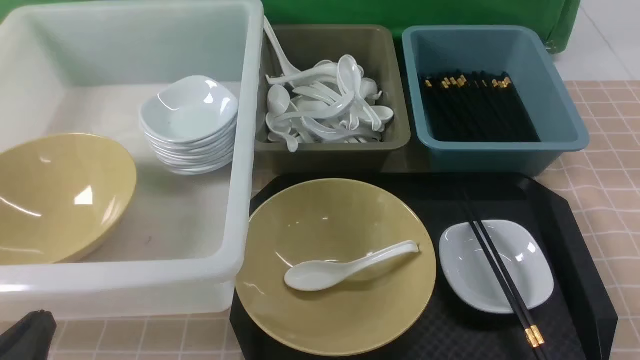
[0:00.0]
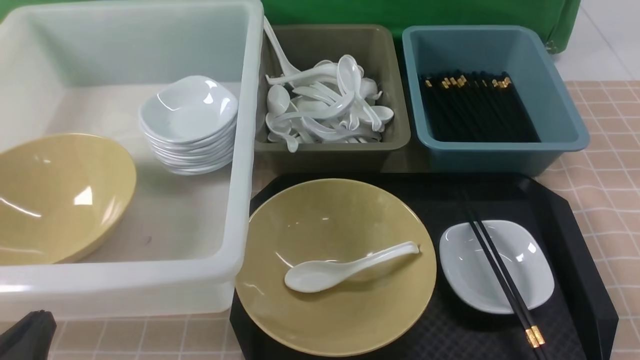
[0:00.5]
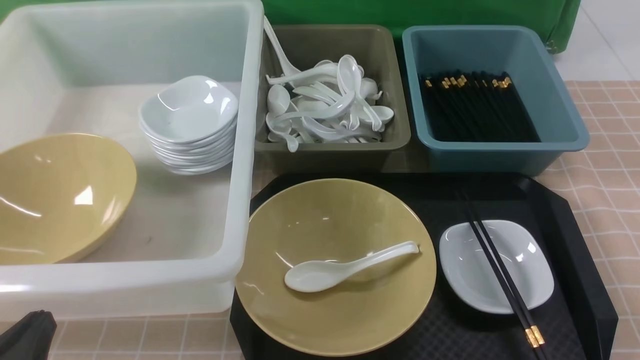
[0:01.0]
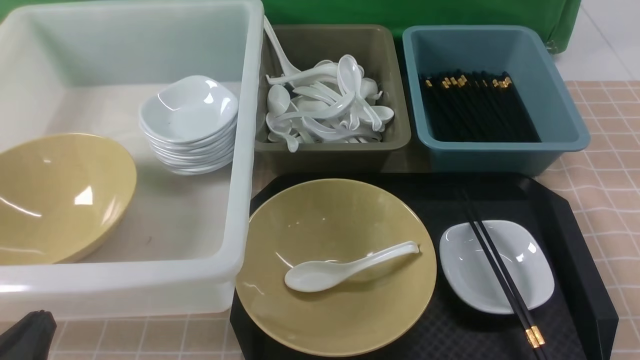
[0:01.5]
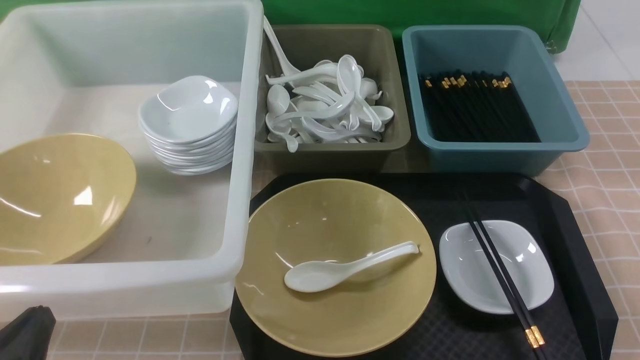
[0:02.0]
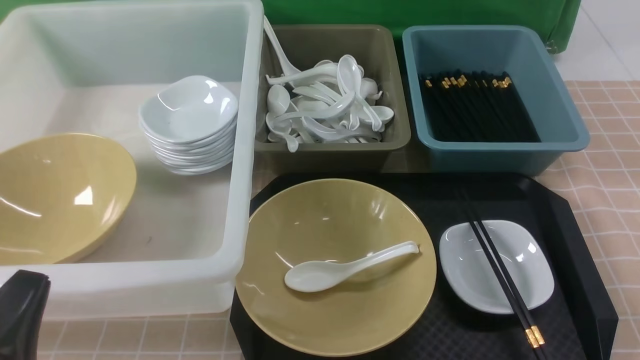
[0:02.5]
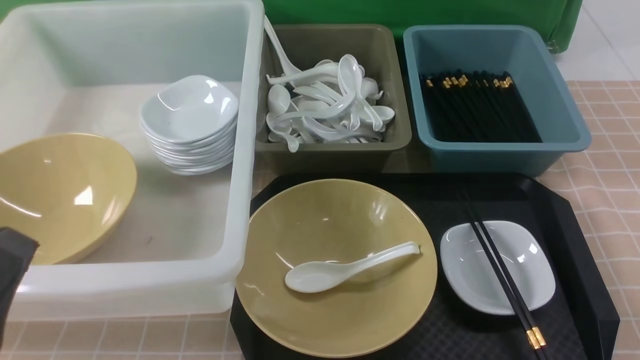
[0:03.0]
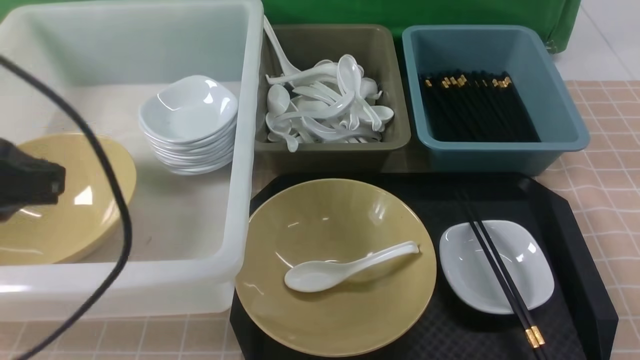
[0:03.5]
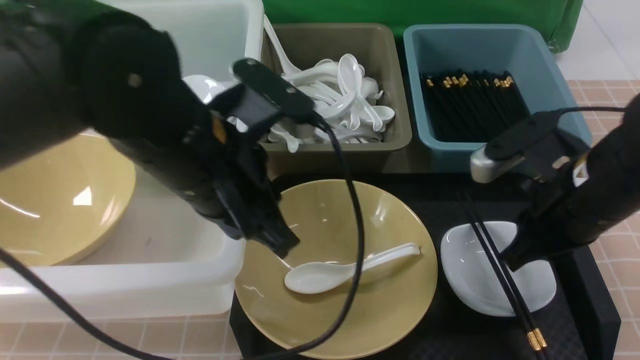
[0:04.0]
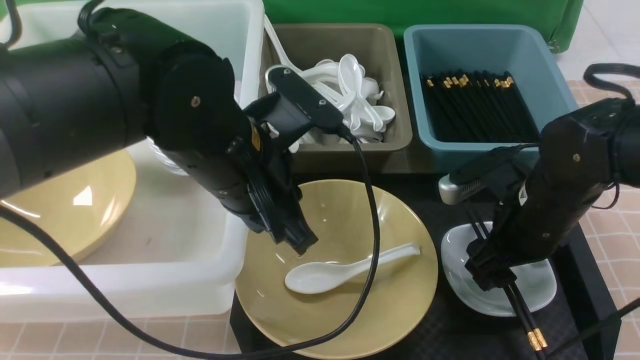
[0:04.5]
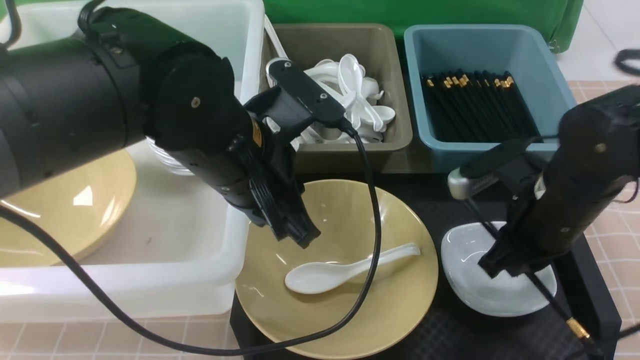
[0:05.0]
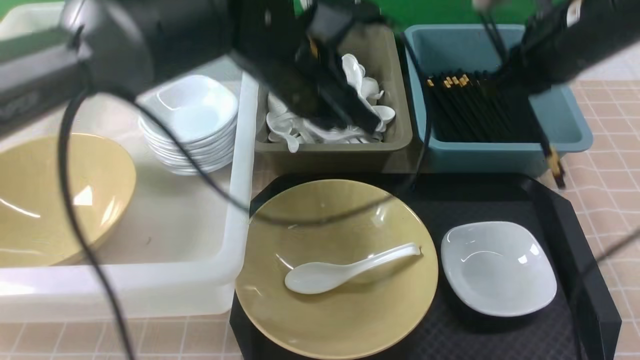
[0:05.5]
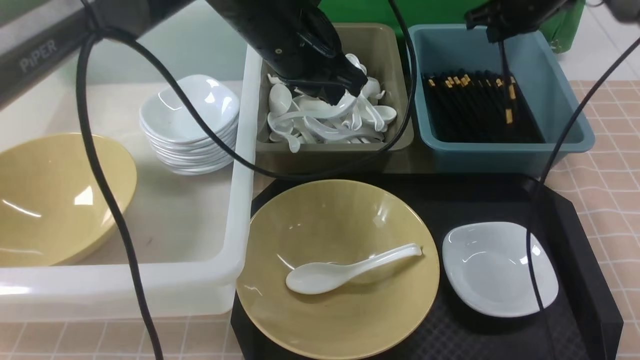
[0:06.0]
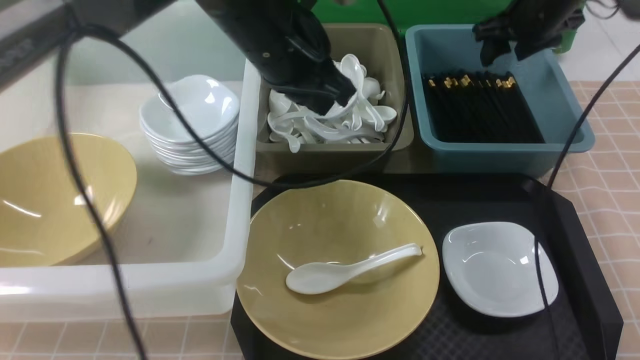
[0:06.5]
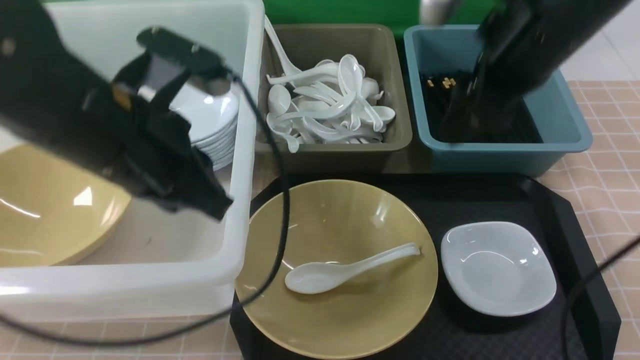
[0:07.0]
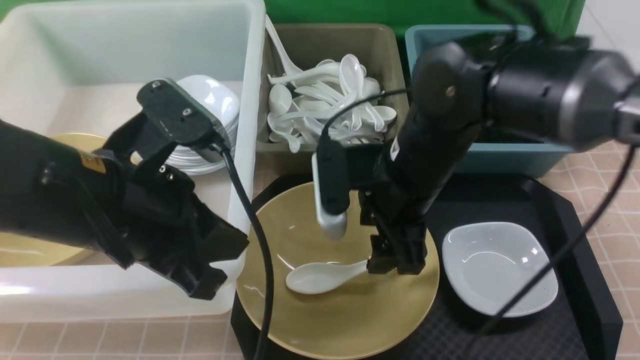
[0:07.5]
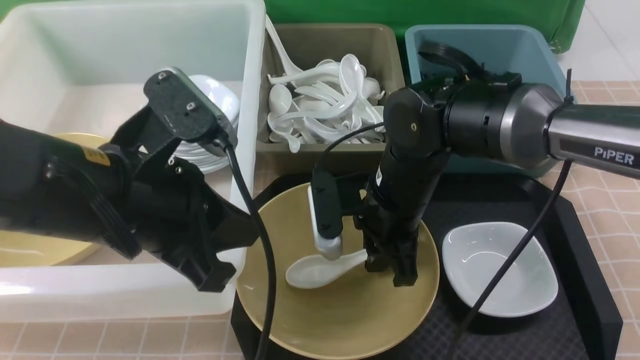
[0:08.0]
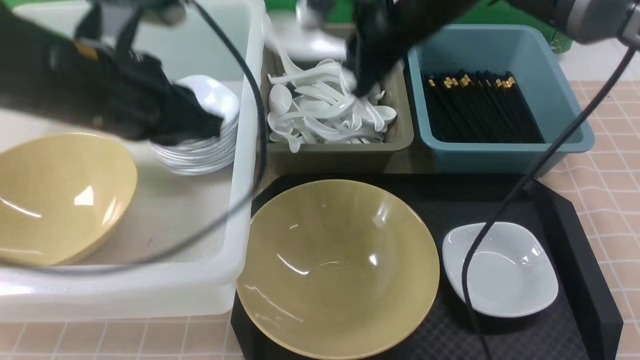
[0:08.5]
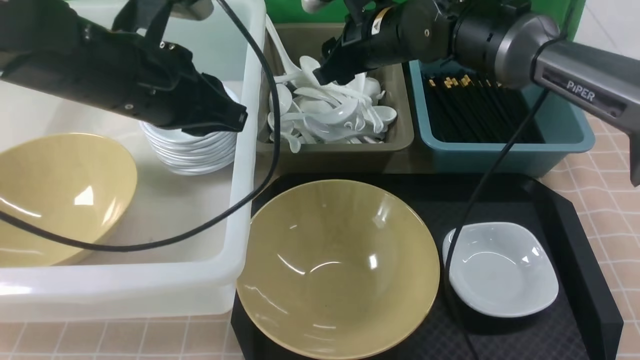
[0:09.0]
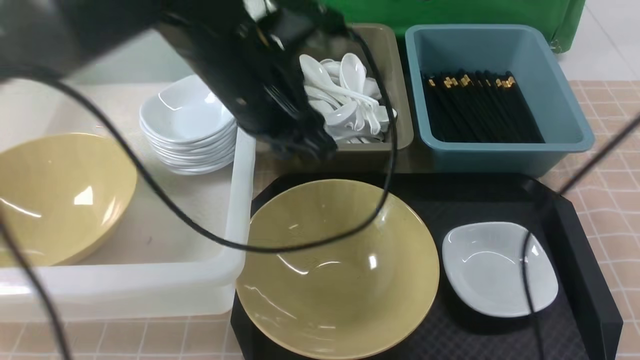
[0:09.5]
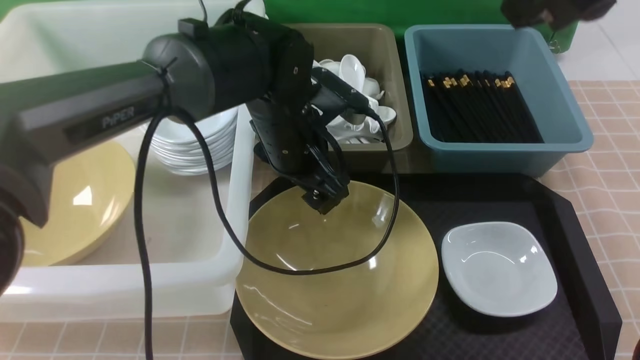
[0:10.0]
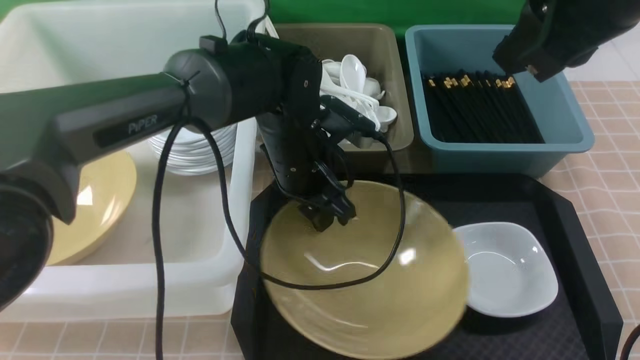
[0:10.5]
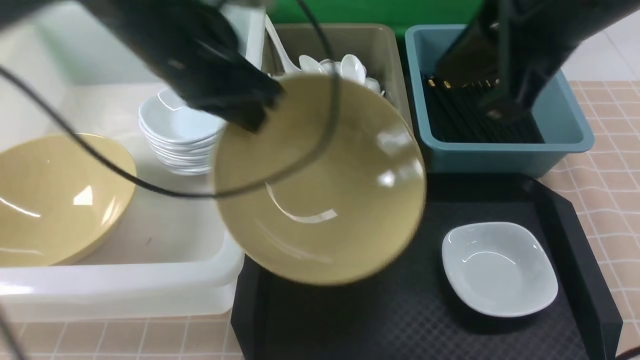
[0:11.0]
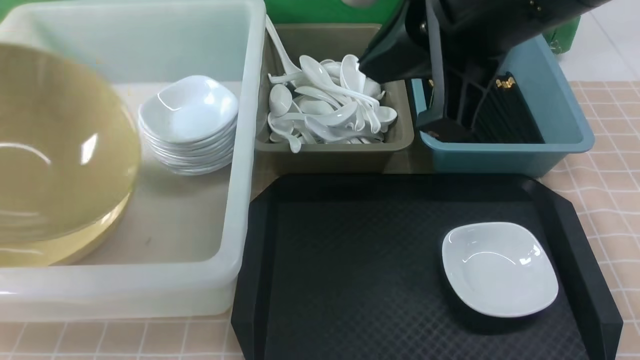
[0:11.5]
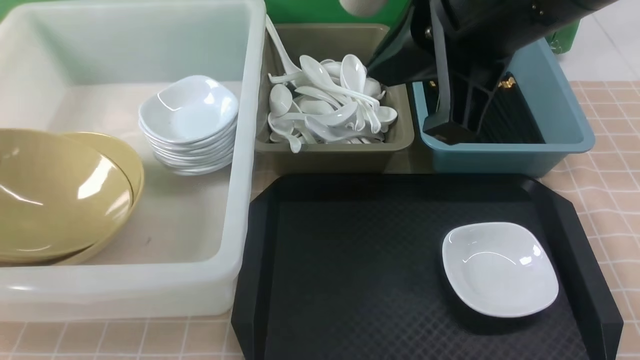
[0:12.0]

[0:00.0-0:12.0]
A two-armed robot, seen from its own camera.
Task of the whole recording: on brown table put chopsticks spoon bowls plates into blue grey white boxes.
Step, 0:00.0 to 0:05.0: use the right arm to grab the chopsticks.
Step, 0:05.5 to 0:06.5: use the right arm to put the chopsticks into the small storage box on the right.
Step, 0:07.0 to 0:08.0: use the right arm to grab the soup spoon in the middle.
Step, 0:08.5 to 0:09.0: use the right arm to put the soup spoon into the small storage box in the middle.
Step, 0:09.5 to 0:10.5: use the left arm to grab the yellow noodle bowl on the left.
0:02.0 to 0:04.0: The left gripper travels forward, to the right and upward by about 25 cm. The right gripper shifts about 25 cm forward and to the left, and closes and opens again.
0:04.0 to 0:06.0: The right gripper goes roughly 25 cm forward, and opens and closes again. The left gripper heads forward, covering approximately 15 cm.
0:06.0 to 0:08.0: The grippers both shift backward and to the left by approximately 25 cm. The right gripper opens and closes again.
0:08.0 to 0:10.0: The right gripper shifts about 25 cm upward and to the right, and opens and closes again. The left gripper heads forward, to the right and downward, covering approximately 20 cm, and opens its fingers.
0:10.0 to 0:12.0: The left gripper heads to the left, covering approximately 40 cm, and closes up, while the right gripper goes roughly 10 cm to the left, and closes.

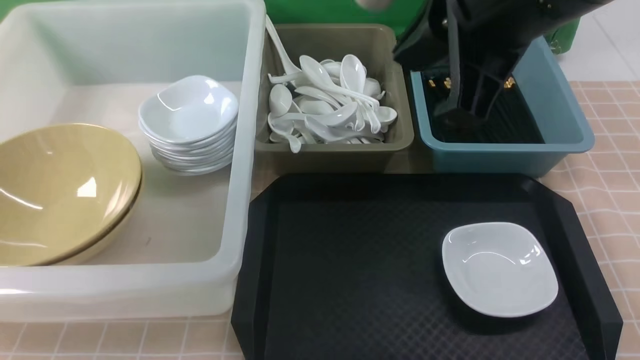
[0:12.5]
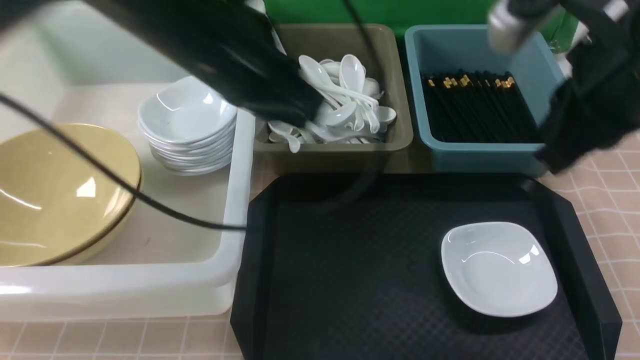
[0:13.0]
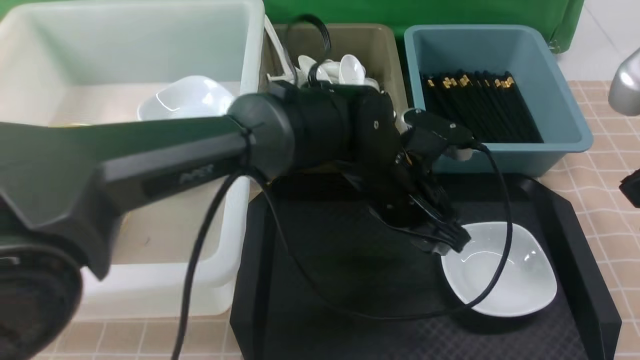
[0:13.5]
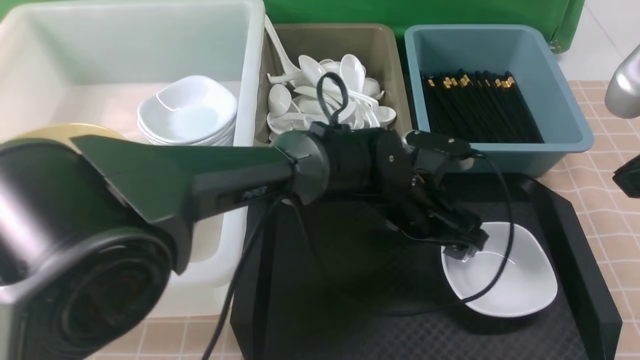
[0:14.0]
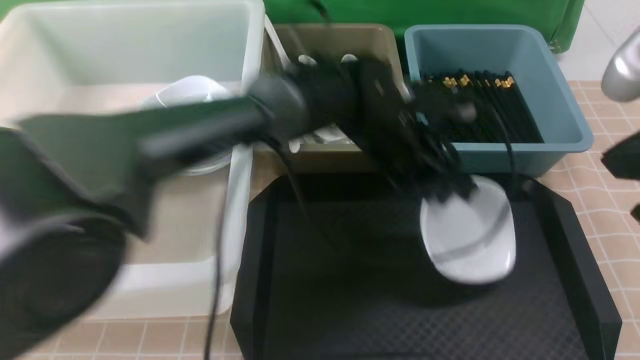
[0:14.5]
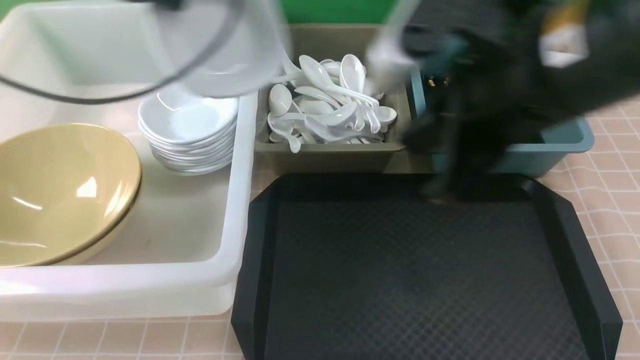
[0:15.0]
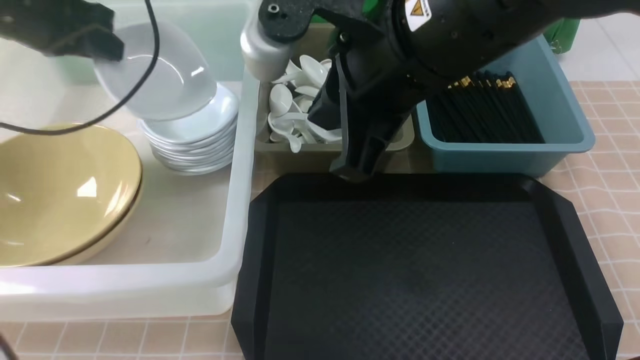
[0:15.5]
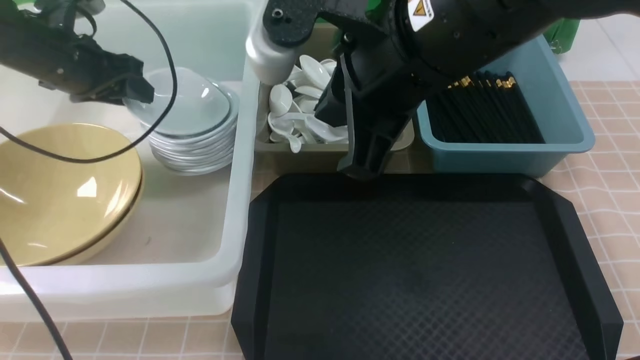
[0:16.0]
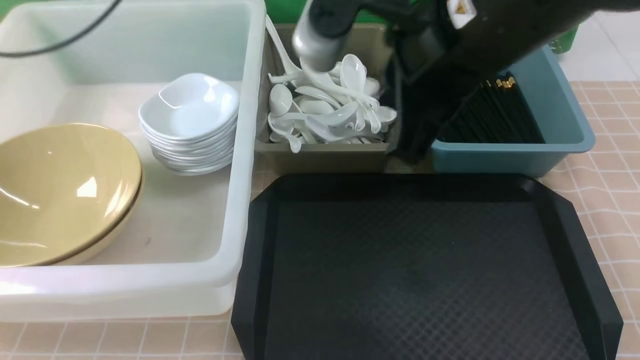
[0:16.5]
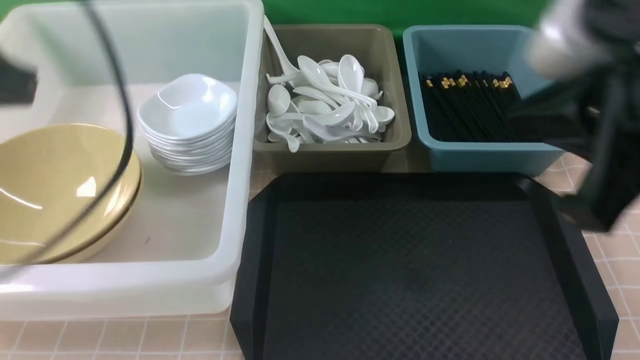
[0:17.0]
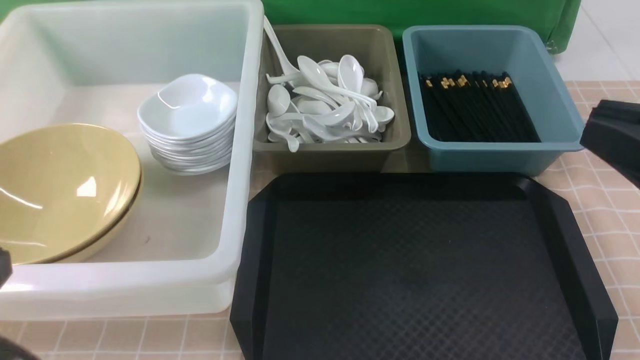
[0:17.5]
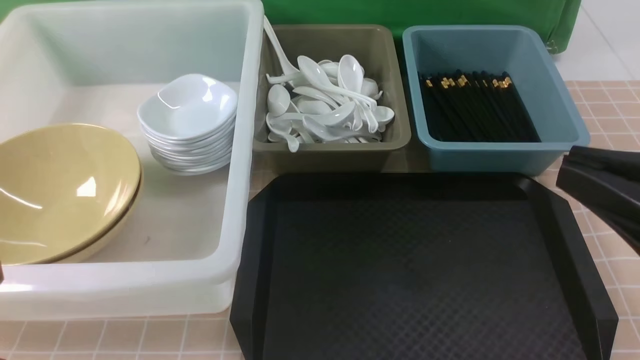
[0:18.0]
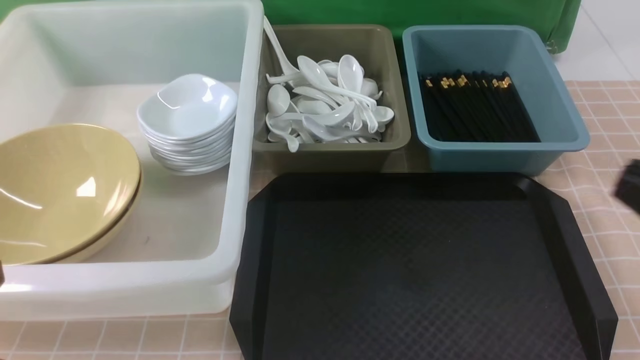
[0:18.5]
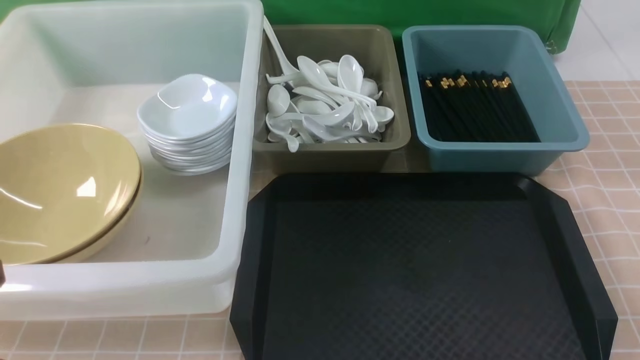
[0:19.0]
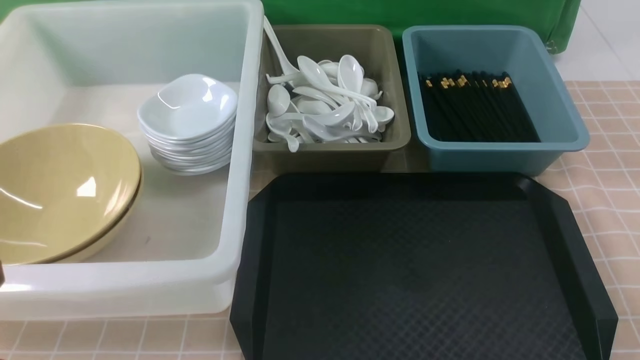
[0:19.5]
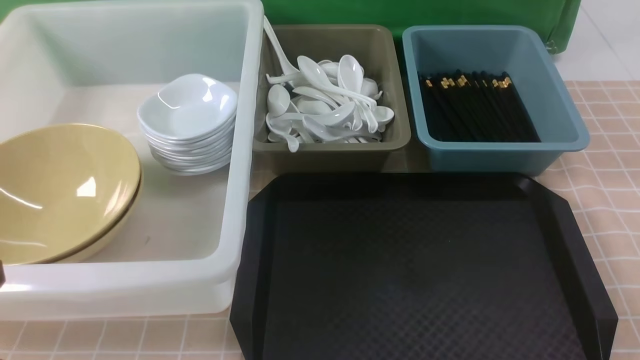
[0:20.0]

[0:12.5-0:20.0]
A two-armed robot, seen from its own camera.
Task of the whole recording: on brown table put chopsticks spoon bowls plates into blue grey white boxes.
Step, 0:12.5 to 0:14.0: use the left arm to grab the plate.
Step, 0:14.5 to 0:16.0: use the left arm to put the plate into the large storage box on the left.
0:12.5 to 0:14.5: The left gripper goes some 40 cm to the right, and closes its fingers. Meanwhile the right gripper goes about 15 cm to the right, backward and downward.
0:14.5 to 0:16.5: The right gripper travels to the left and forward by some 15 cm, while the left gripper heads to the left and upward, covering some 35 cm, and opens its fingers.
0:16.5 to 0:18.0: The right gripper moves backward and to the right, about 20 cm; the left gripper goes some 35 cm backward and downward, and closes up.
0:18.0 to 0:20.0: The right gripper is displaced downward and to the right by approximately 20 cm.
